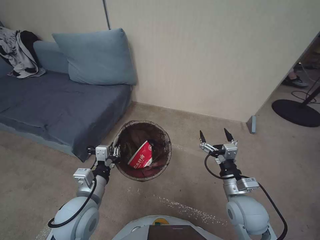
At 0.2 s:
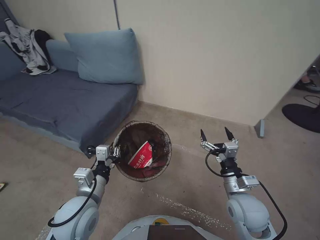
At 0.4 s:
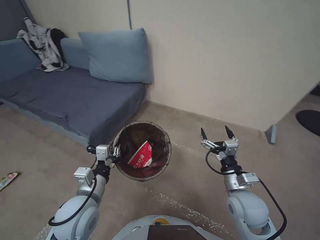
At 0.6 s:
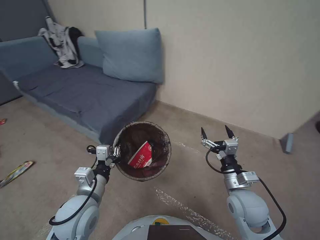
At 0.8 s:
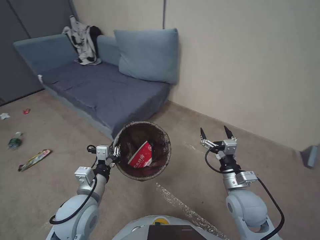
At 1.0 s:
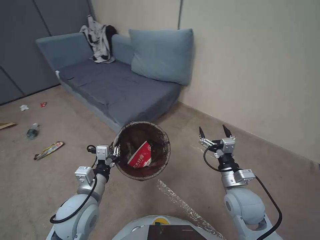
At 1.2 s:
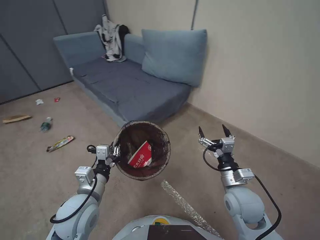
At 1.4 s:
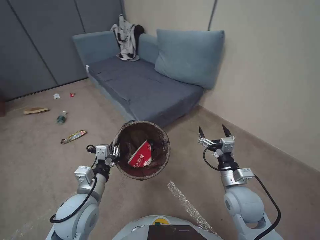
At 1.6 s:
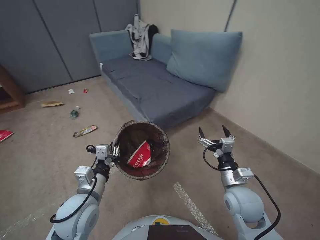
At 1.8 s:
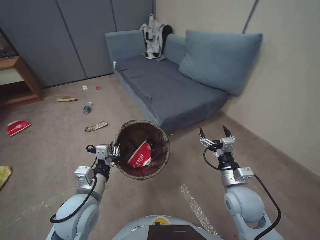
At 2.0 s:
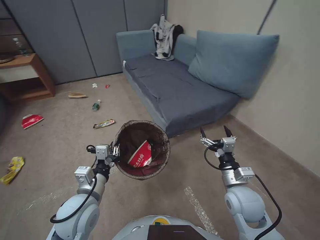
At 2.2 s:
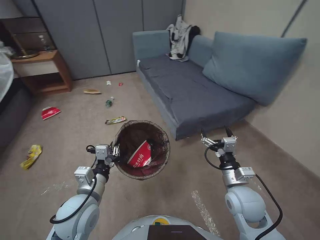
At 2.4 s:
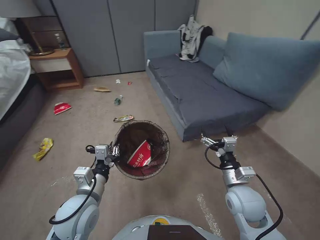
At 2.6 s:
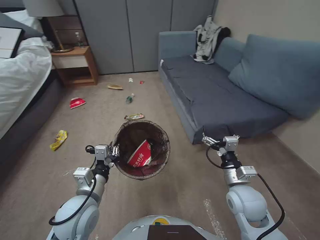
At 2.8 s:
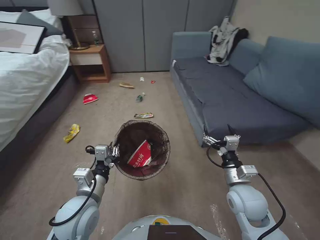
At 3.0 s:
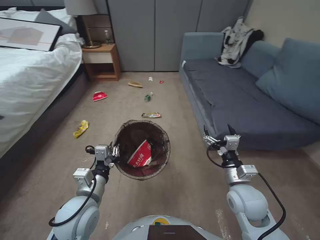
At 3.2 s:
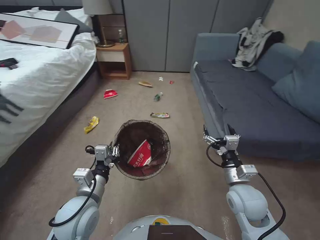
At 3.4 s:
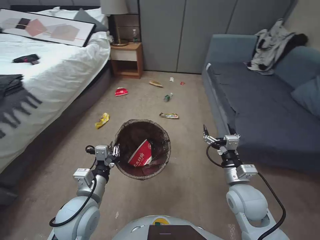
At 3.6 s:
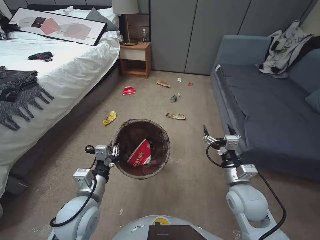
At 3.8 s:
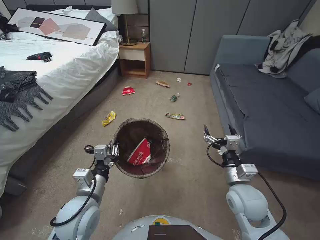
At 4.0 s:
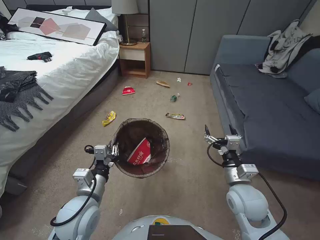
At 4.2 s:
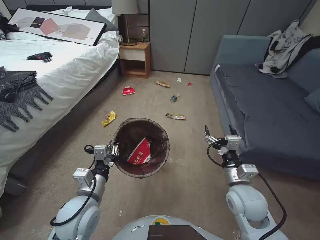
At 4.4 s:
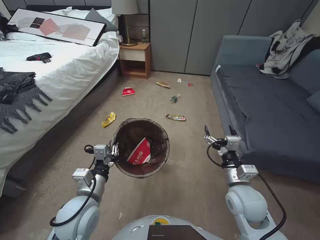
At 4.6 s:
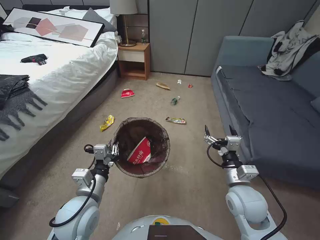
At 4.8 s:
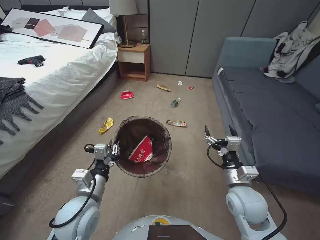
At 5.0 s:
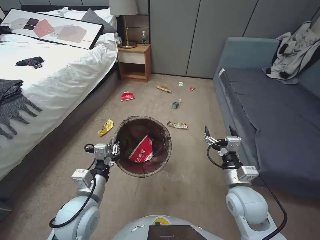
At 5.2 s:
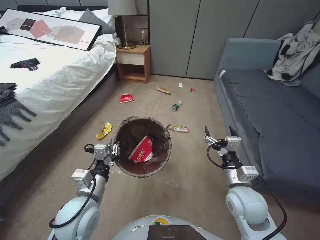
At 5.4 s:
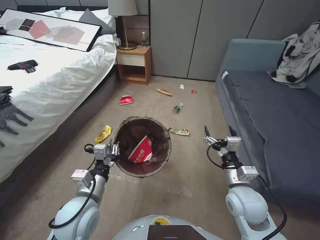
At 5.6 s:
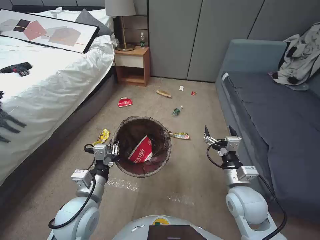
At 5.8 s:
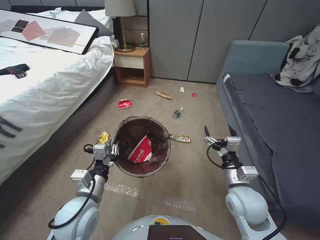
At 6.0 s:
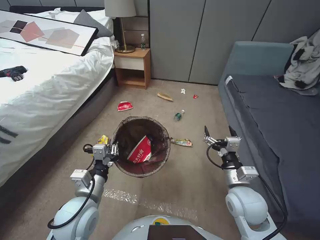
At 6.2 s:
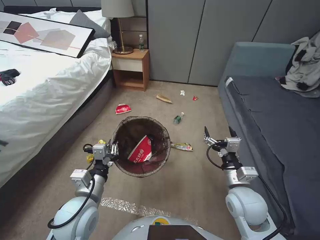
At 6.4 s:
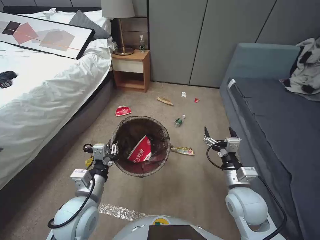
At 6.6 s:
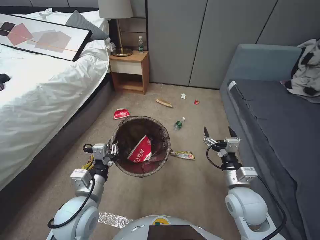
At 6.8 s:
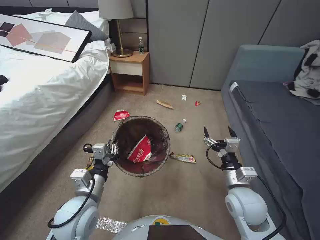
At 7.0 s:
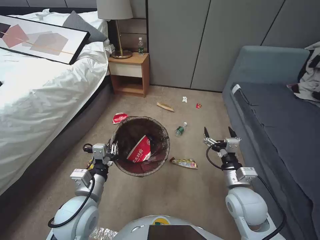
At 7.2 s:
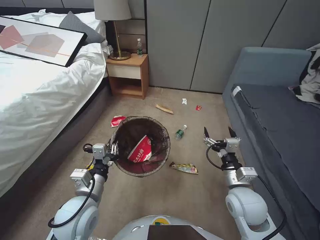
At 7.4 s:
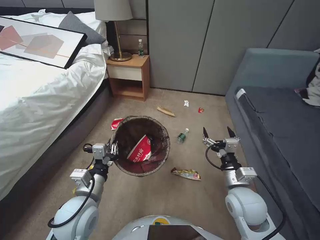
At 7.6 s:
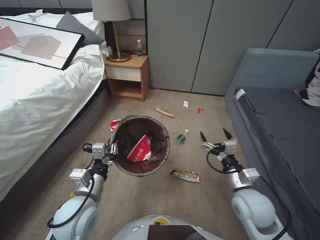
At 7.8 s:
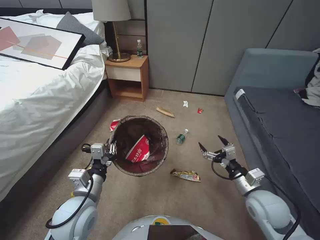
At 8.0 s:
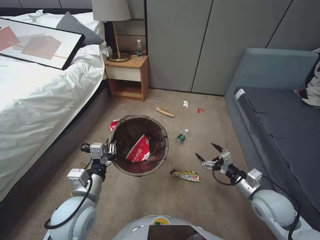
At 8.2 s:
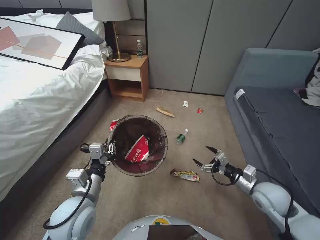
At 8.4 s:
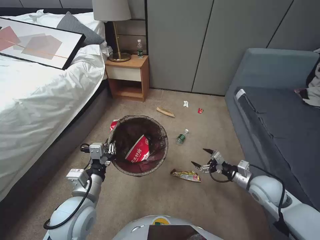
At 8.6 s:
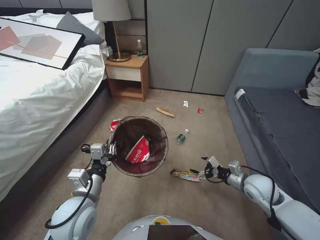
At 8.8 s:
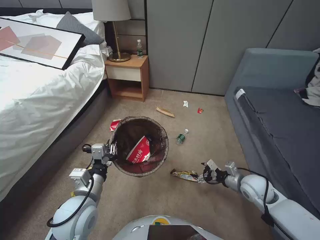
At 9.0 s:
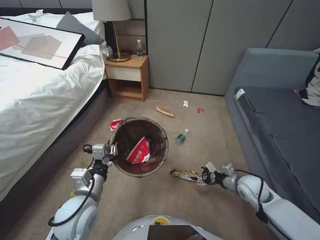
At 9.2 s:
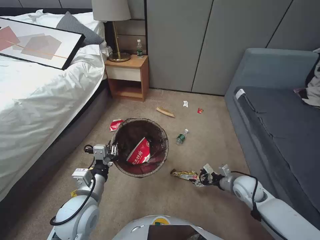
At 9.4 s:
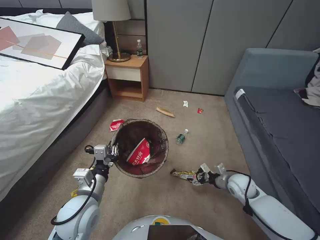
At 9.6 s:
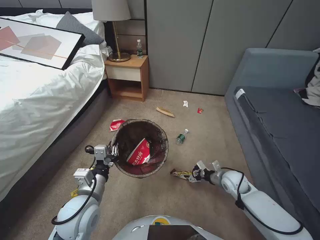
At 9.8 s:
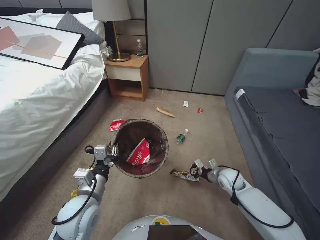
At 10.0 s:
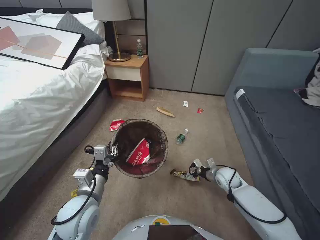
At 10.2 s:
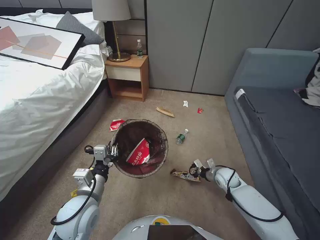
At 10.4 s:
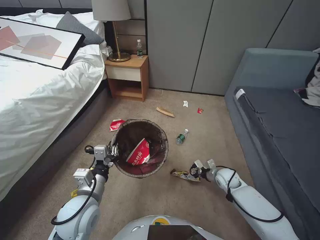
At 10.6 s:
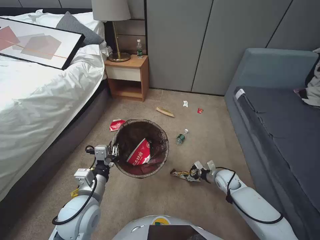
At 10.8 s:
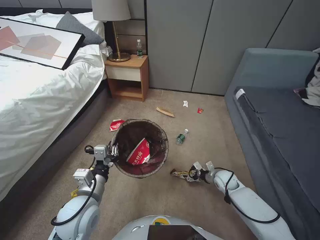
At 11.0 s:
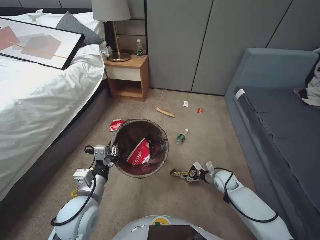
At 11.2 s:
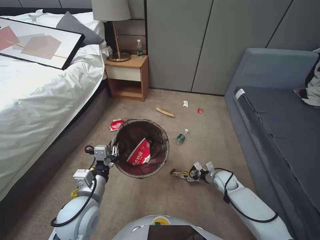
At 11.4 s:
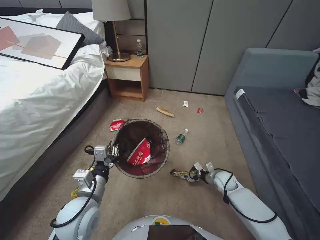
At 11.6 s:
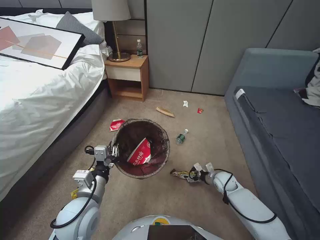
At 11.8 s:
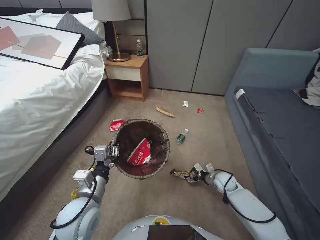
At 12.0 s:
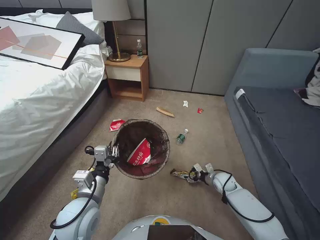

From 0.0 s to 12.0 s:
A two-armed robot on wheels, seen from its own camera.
Task of the whole recording: Pick up the trash bin, then pick up the garbage from the floor and place it into the trash bin.
From 7.6 s to 9.0 s: The right gripper shifts about 15 cm to the right, downward and forward.
From 9.0 s to 10.4 s: The right gripper moves downward and forward, roughly 10 cm.
From 10.4 s to 12.0 s: The grippers stay close to where they were, moving slightly.

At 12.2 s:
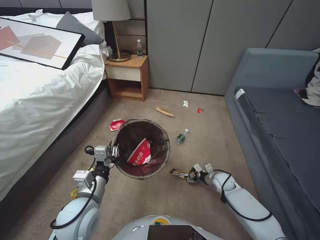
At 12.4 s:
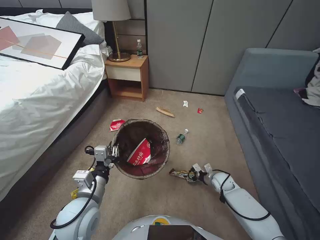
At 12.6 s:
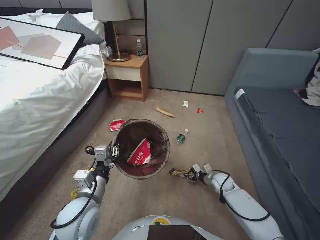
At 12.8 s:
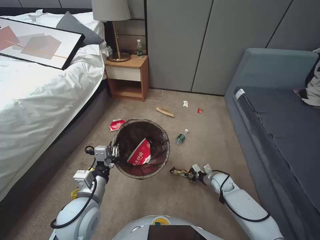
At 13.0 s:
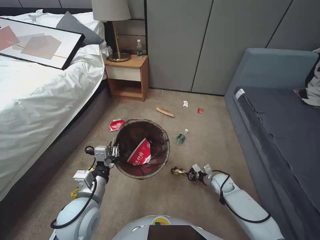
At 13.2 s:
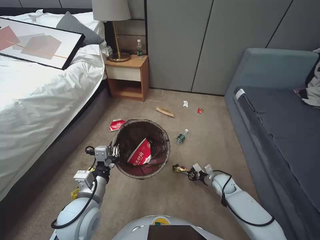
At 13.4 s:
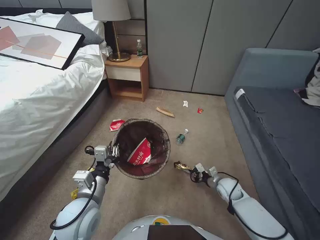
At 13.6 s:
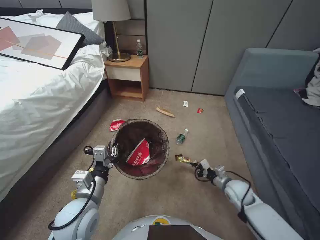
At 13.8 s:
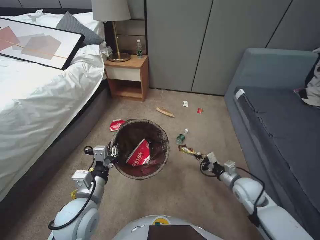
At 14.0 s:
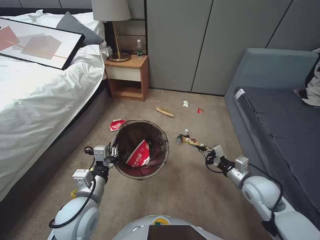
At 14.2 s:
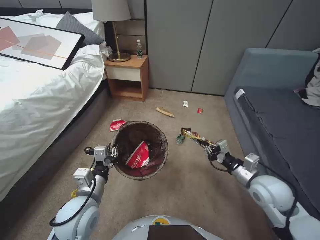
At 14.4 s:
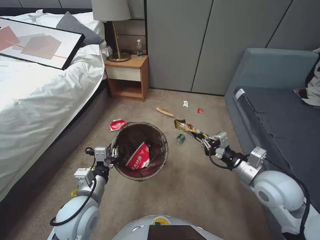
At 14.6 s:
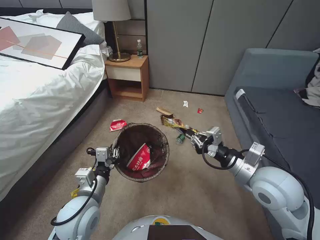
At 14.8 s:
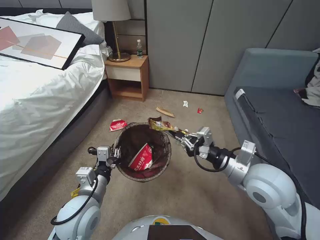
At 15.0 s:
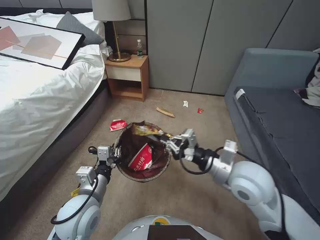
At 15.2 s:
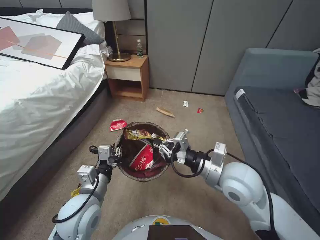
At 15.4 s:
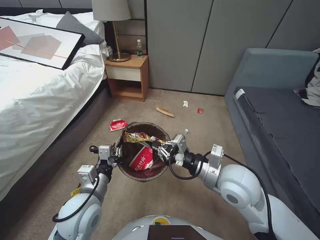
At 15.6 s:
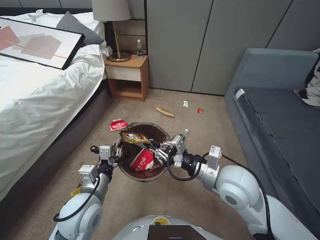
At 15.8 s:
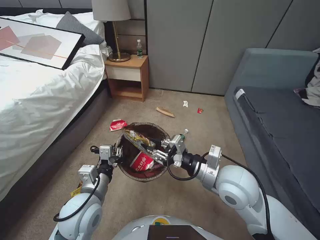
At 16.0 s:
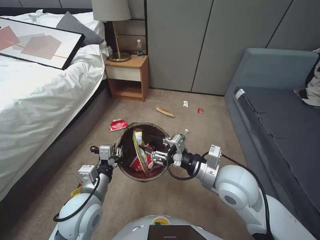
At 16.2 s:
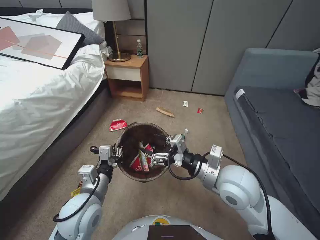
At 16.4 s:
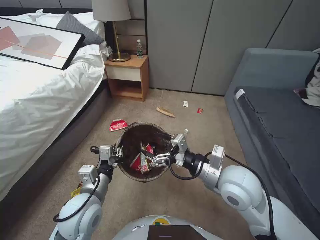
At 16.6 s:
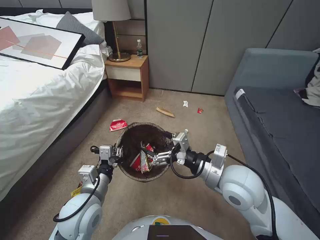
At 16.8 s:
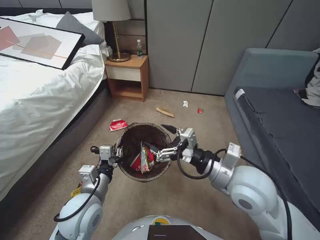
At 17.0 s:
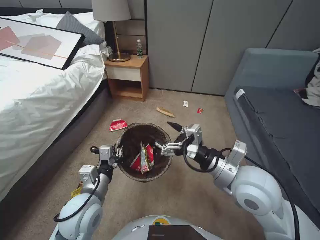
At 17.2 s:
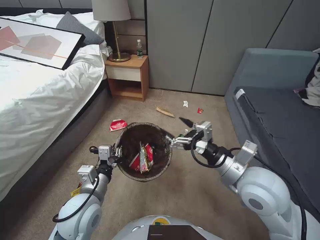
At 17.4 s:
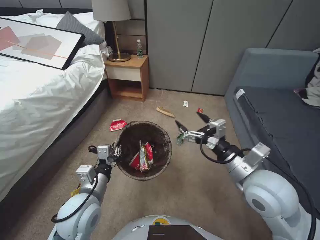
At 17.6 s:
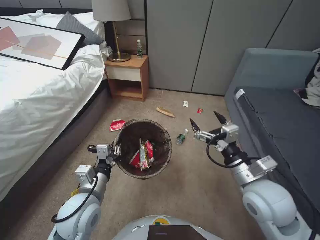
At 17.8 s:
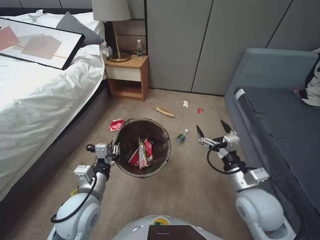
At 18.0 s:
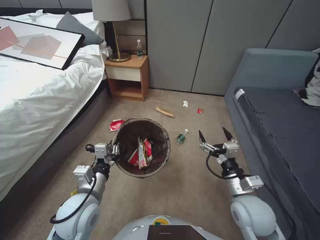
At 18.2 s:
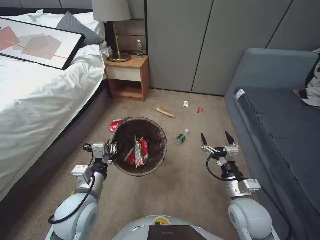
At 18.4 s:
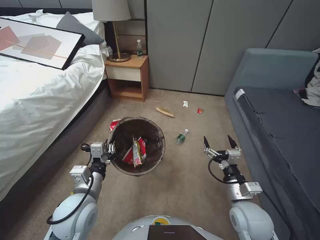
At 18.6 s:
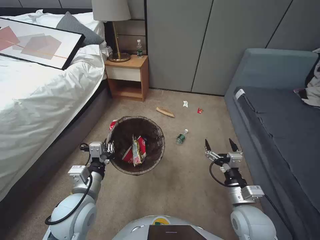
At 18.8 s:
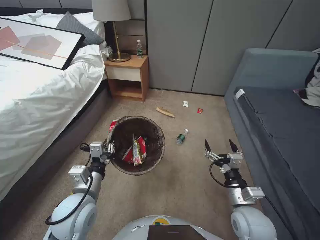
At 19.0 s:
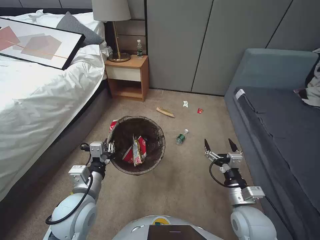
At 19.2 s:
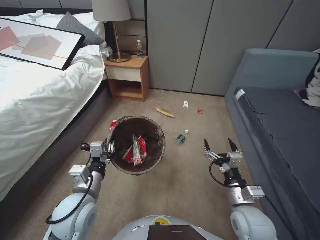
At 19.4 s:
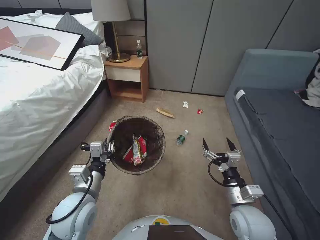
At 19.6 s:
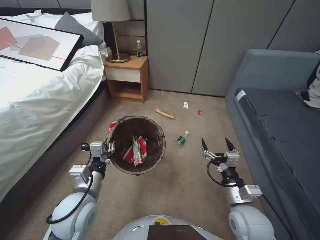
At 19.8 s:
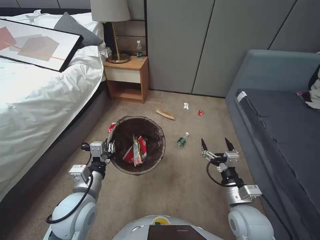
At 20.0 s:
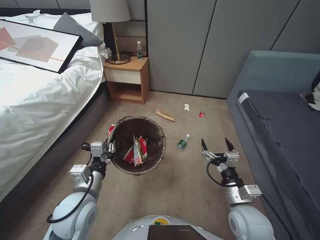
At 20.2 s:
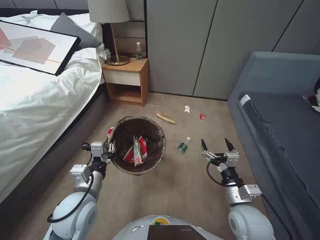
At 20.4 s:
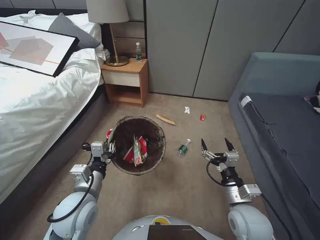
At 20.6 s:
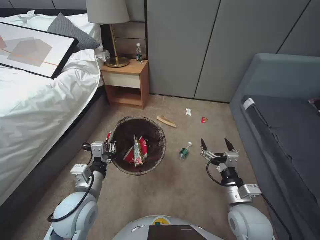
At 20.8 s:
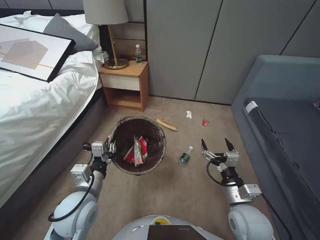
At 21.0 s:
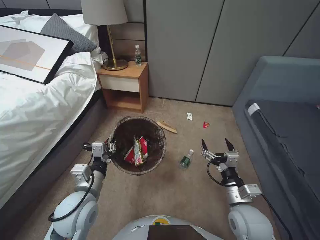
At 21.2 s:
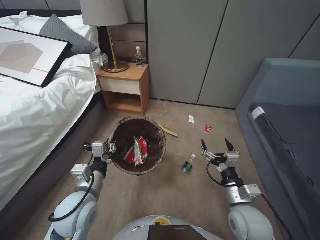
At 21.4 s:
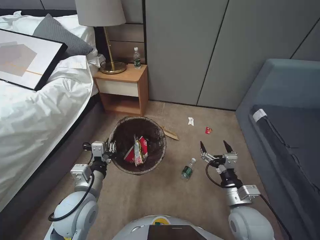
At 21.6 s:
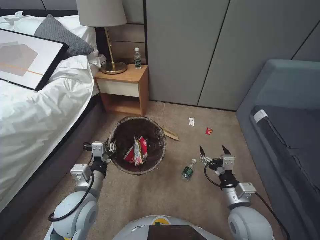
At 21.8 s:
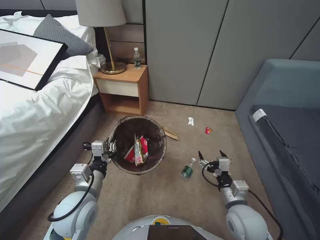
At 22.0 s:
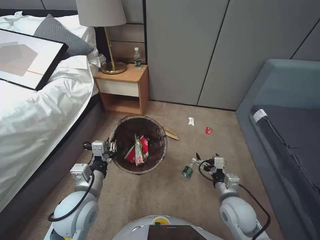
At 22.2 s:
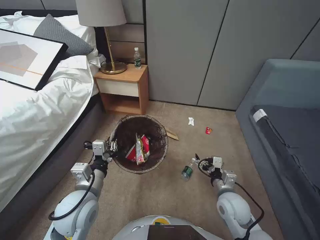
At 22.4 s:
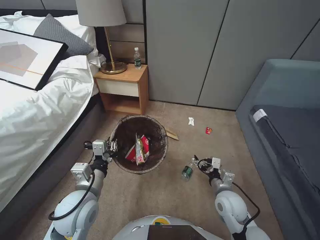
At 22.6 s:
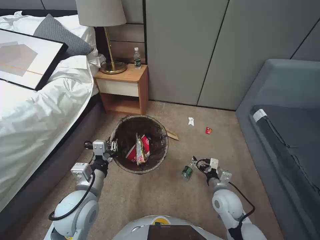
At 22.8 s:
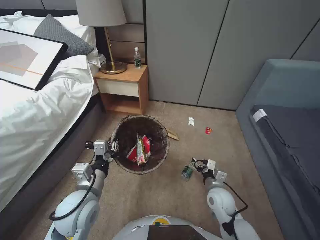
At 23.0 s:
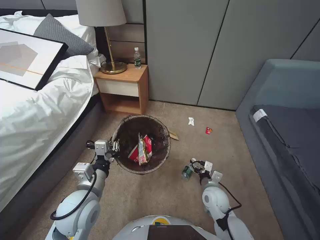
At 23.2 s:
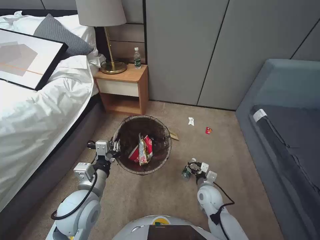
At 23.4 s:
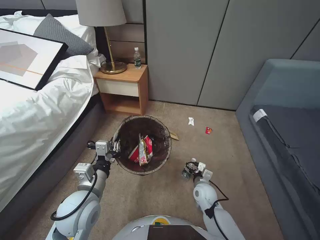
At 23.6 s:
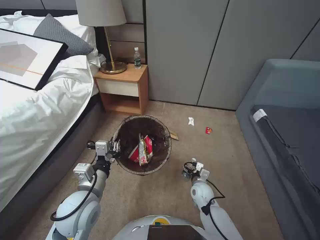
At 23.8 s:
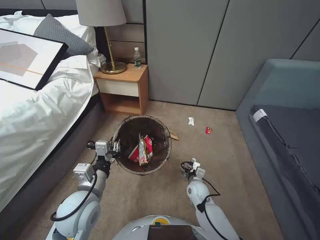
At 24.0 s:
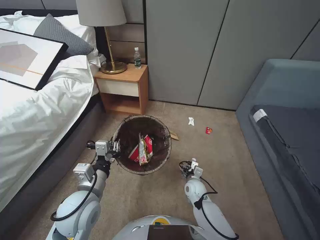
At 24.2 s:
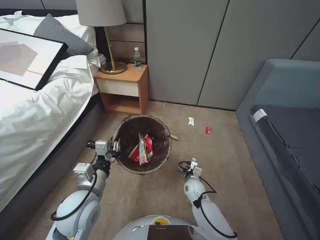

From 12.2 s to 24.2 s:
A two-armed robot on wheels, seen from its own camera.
Task of the whole recording: Pick up the trash bin, then pick up the garbage from the floor and place it into the trash bin.
From 12.2 s to 13.8 s: The right gripper travels upward and backward by some 15 cm, and closes.
From 13.8 s to 15.2 s: The right gripper shifts roughly 25 cm upward and to the left.
From 15.2 s to 16.6 s: The right gripper opens up.
From 16.6 s to 18.2 s: The right gripper goes about 15 cm downward and to the right.
From 18.2 s to 19.8 s: The grippers stay close to where they were, moving slightly.
From 21.2 s to 22.6 s: The right gripper moves downward and forward, roughly 10 cm.
From 22.6 s to 24.2 s: The right gripper is displaced downward, forward and to the left by approximately 15 cm.
